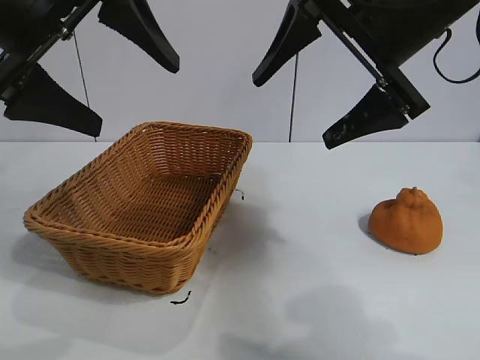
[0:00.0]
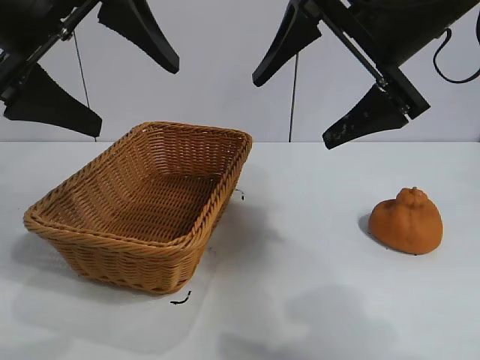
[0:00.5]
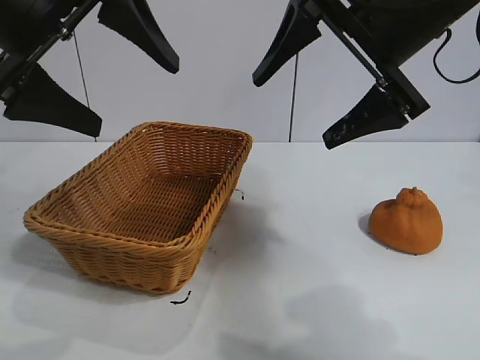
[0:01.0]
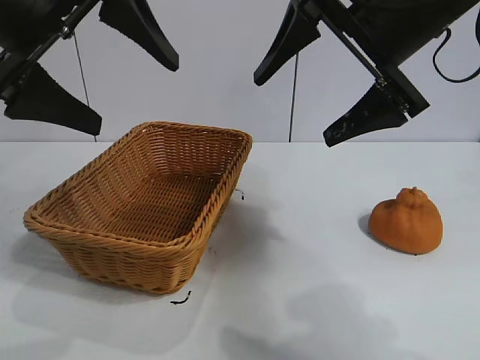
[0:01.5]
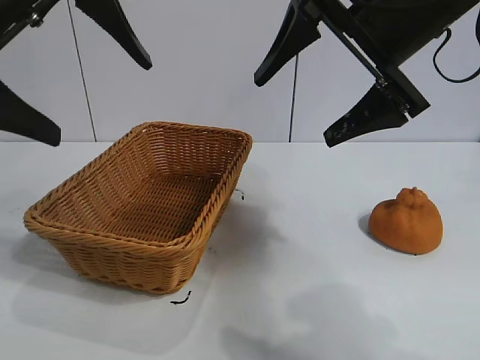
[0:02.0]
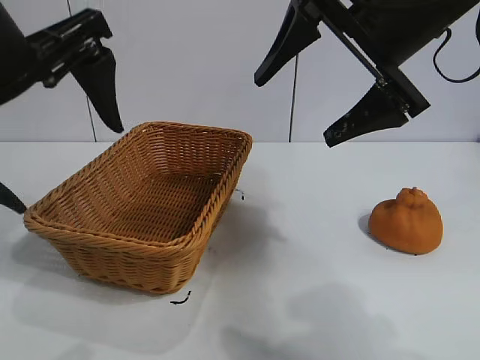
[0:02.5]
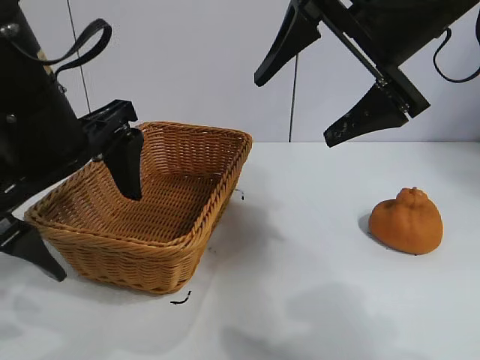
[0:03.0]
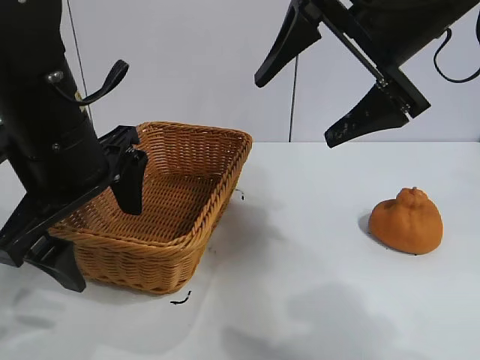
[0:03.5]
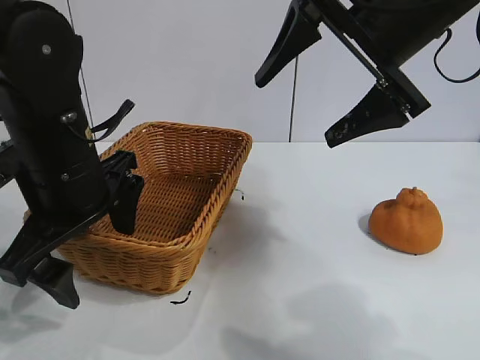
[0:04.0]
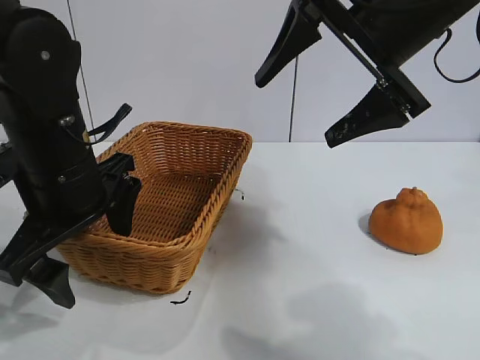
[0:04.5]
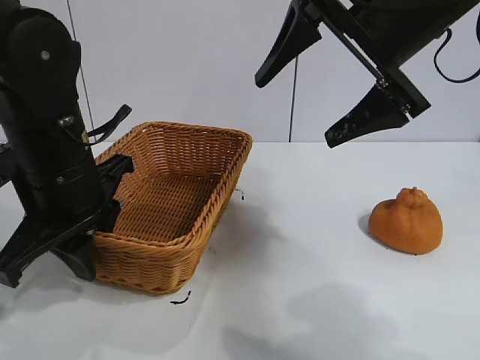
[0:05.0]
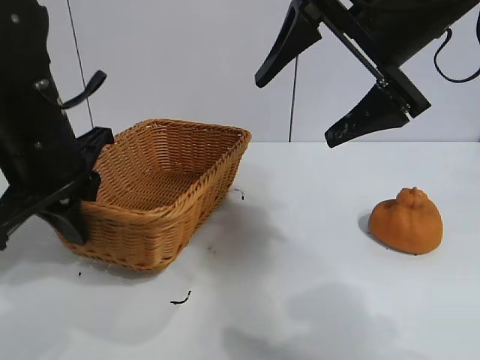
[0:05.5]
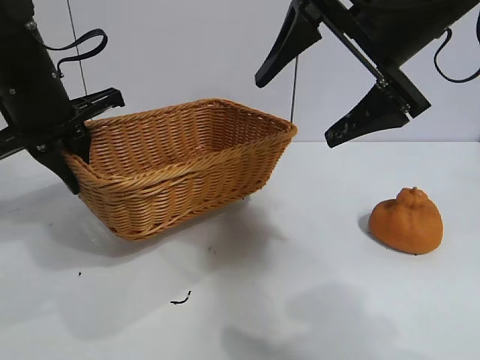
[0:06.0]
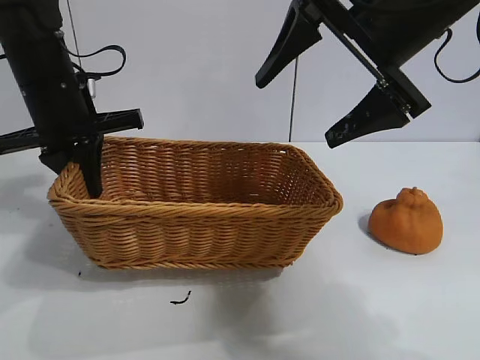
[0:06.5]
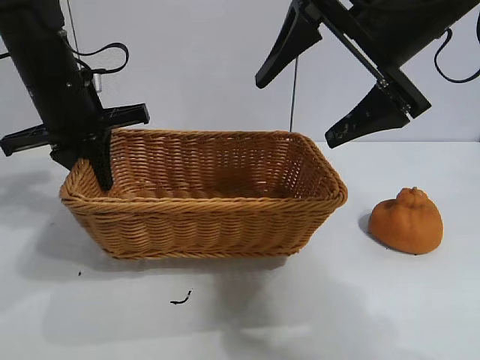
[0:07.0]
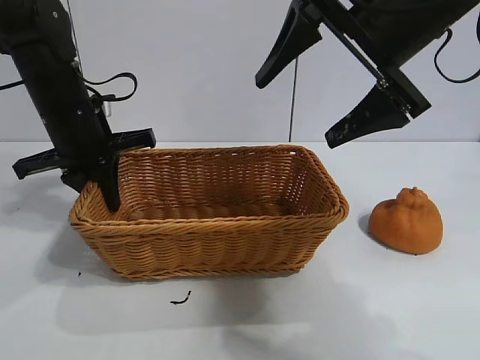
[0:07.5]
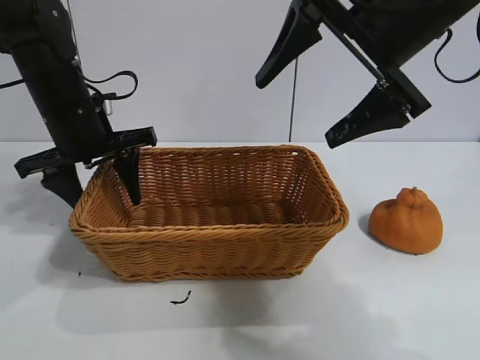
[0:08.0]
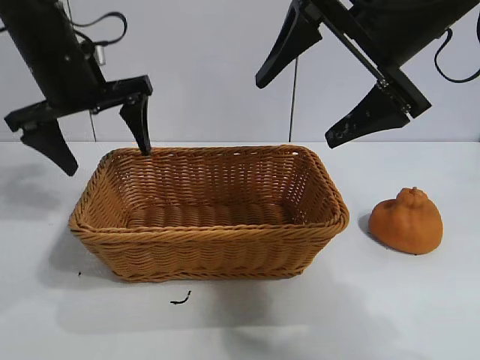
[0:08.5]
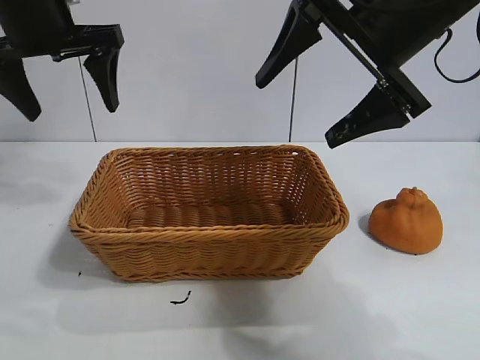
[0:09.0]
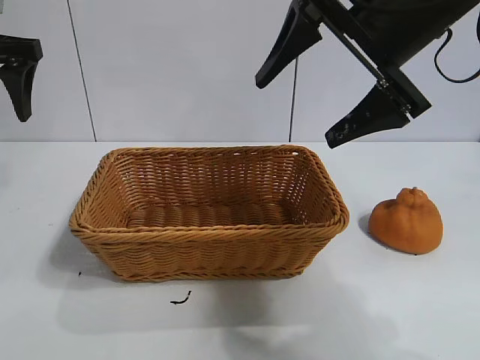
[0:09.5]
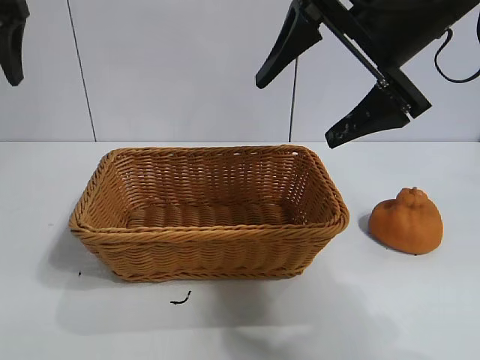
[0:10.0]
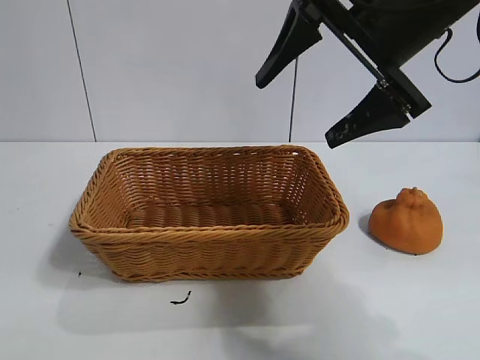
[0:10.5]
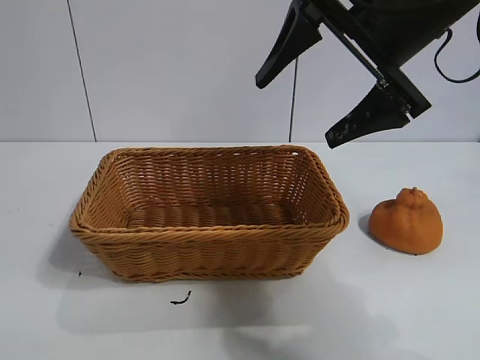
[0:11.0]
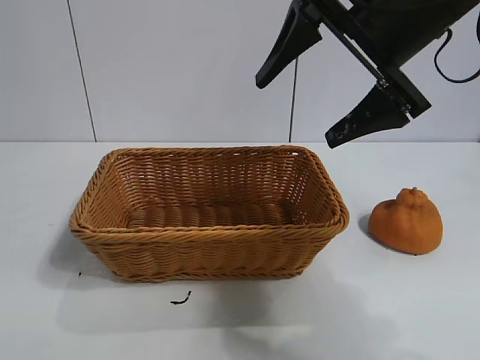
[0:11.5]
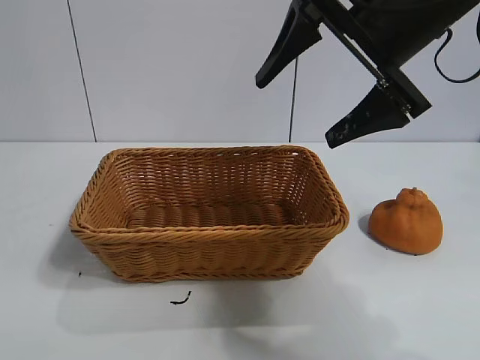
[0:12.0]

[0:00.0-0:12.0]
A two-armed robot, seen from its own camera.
Task of the whole recording: pick up the orange and put it into the basket.
Step, 0:01.5 to 0:05.0: Grasp the basket with left gripper.
Step, 0:05.5 to 0:08.0: Place the basket in the center of view with left gripper.

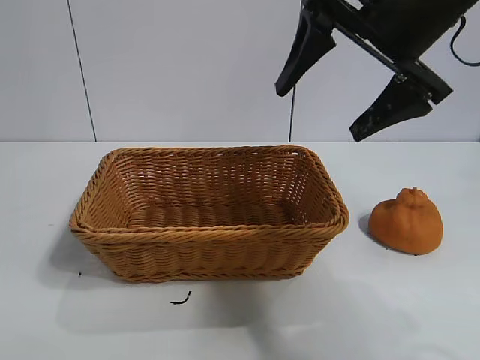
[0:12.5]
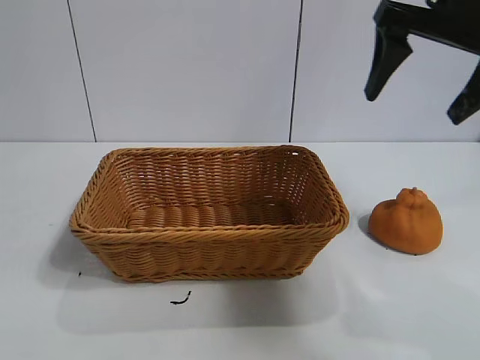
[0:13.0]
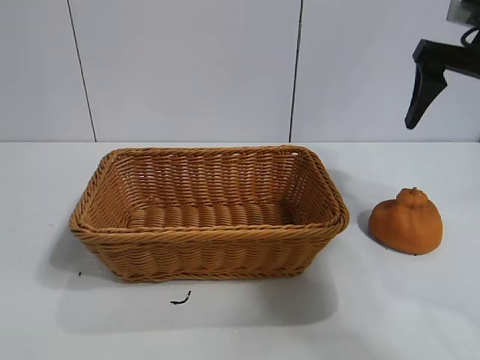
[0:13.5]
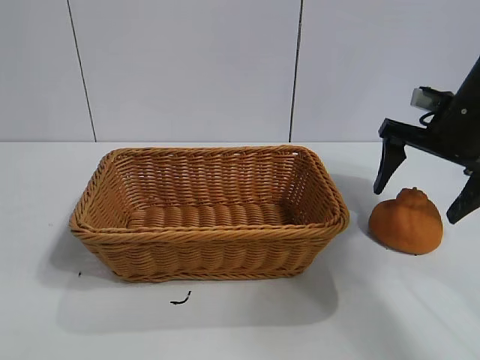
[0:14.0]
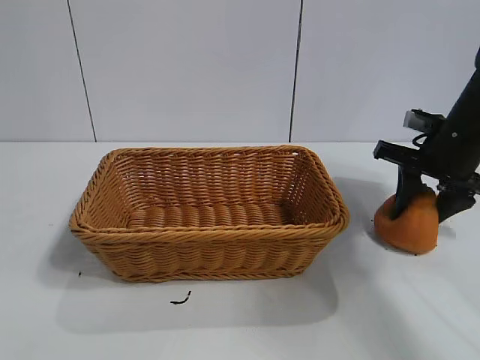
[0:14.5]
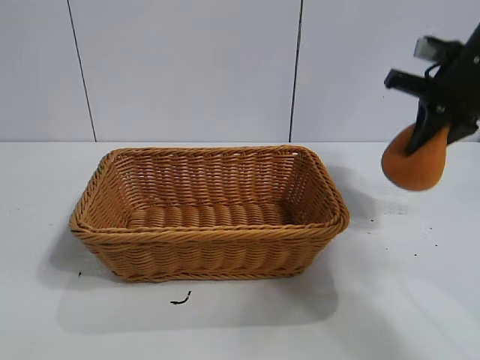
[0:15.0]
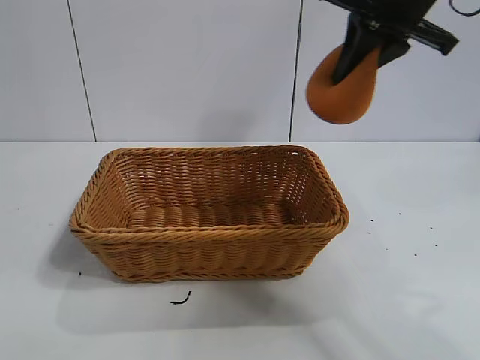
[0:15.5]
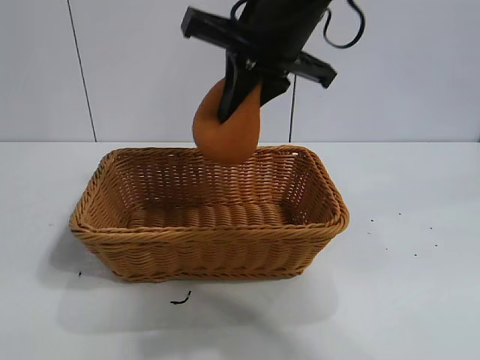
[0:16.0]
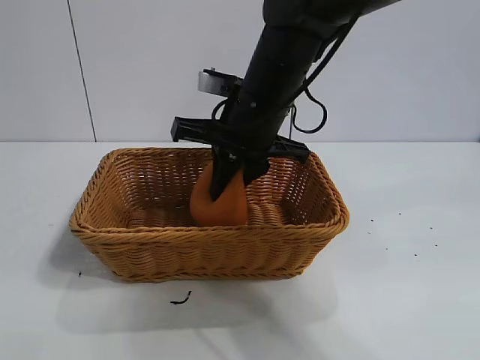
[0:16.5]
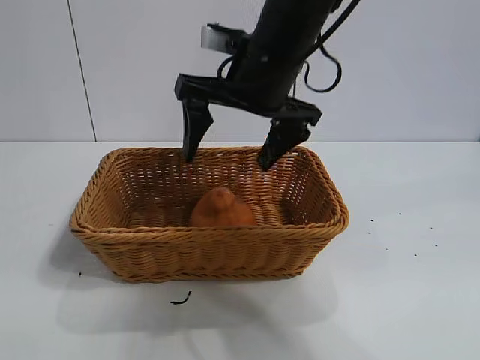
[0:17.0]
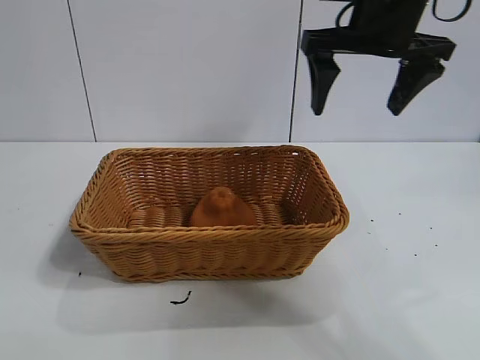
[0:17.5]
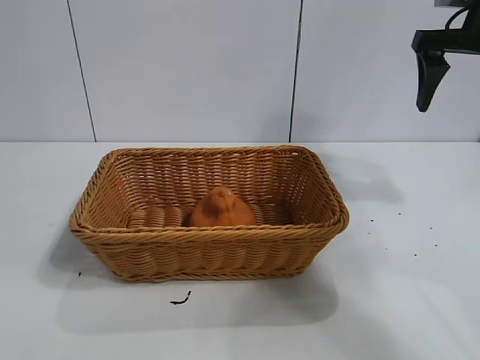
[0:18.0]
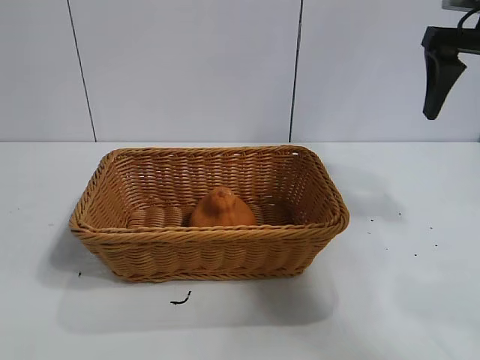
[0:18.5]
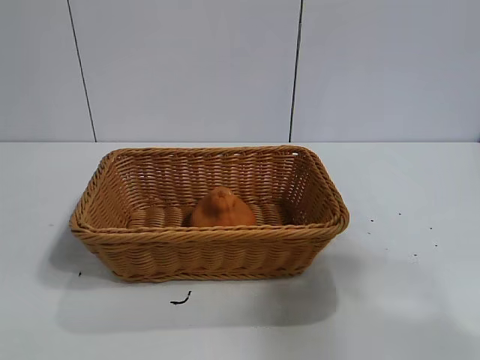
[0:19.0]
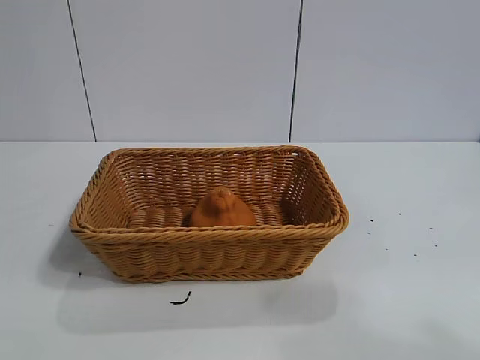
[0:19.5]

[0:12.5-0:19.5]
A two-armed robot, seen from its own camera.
Task of the whole recording: pick up the orange and put it into the basket.
Step, 0:12.5 to 0:14.5: Grasp the orange with right gripper.
Step, 0:15.0 to 0:16.5: Place the orange in the basket with right gripper.
